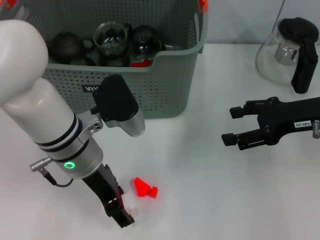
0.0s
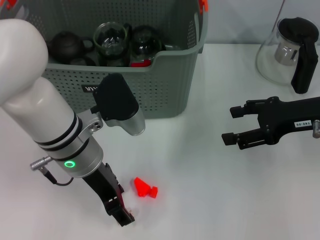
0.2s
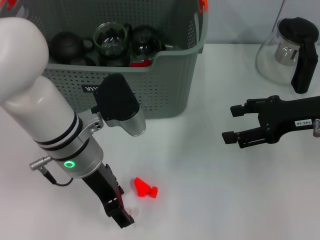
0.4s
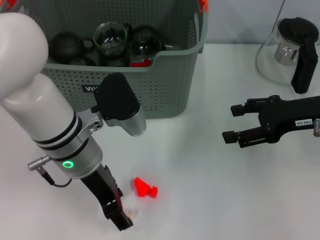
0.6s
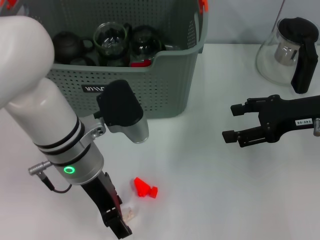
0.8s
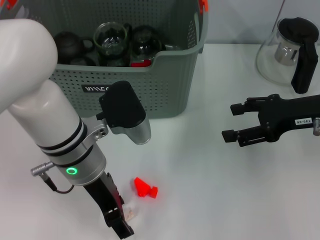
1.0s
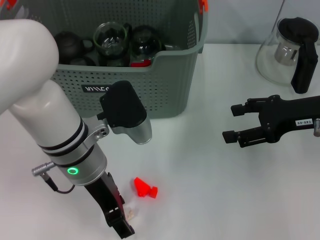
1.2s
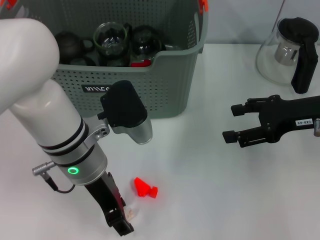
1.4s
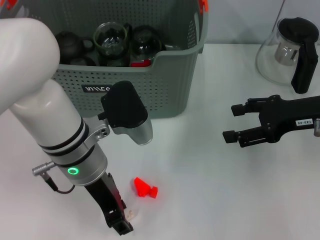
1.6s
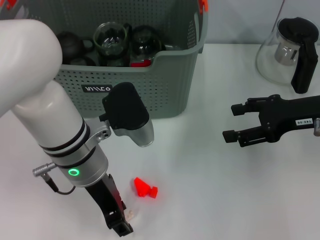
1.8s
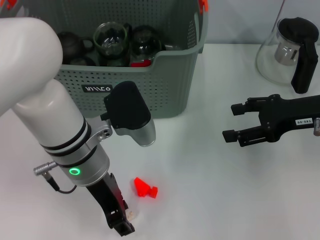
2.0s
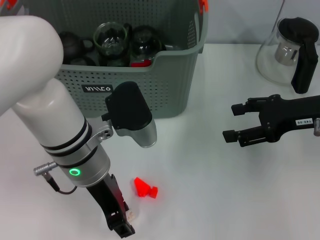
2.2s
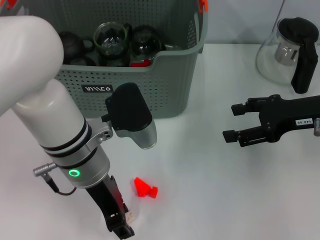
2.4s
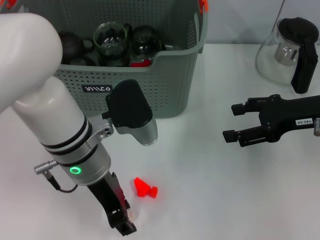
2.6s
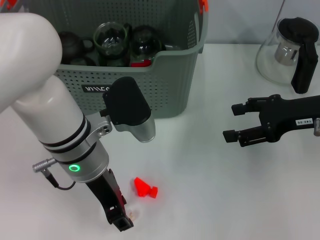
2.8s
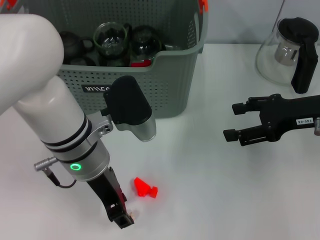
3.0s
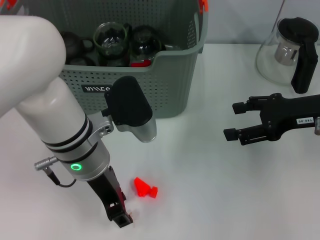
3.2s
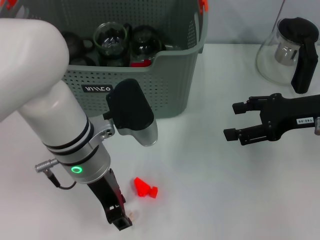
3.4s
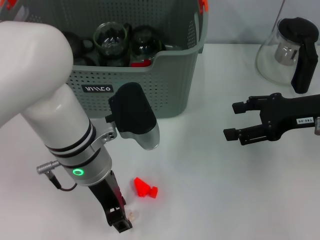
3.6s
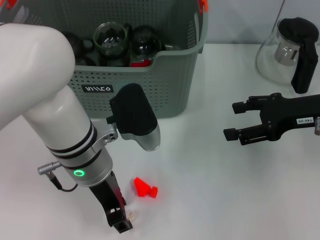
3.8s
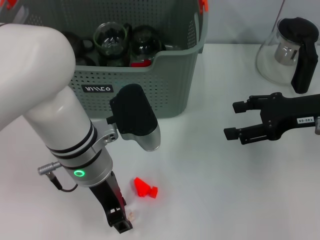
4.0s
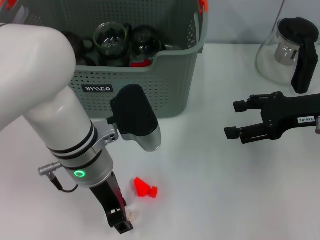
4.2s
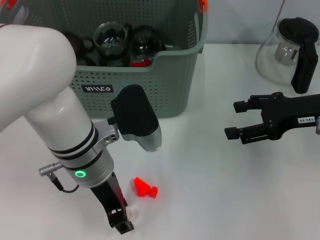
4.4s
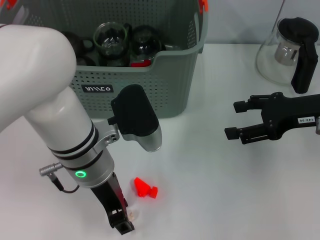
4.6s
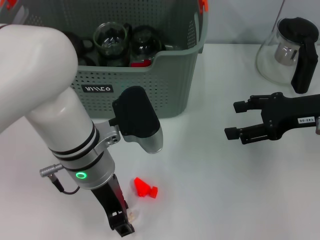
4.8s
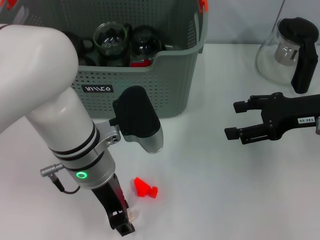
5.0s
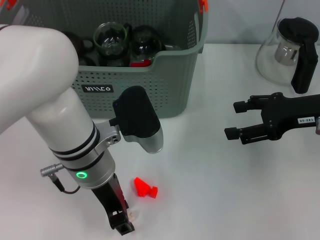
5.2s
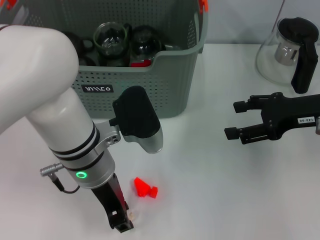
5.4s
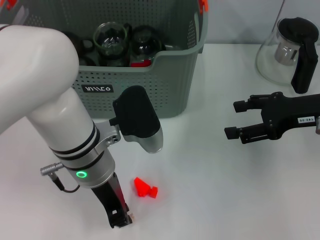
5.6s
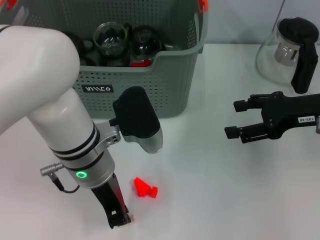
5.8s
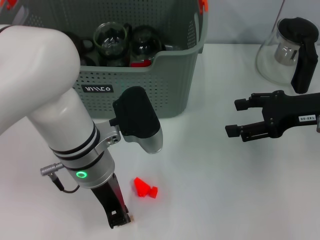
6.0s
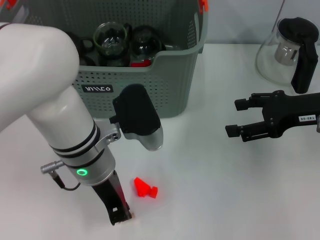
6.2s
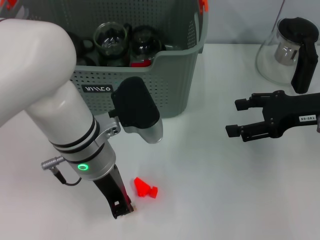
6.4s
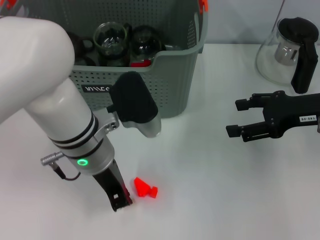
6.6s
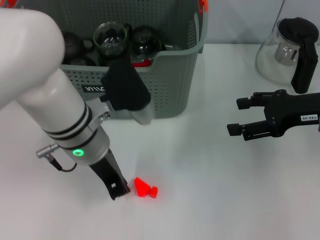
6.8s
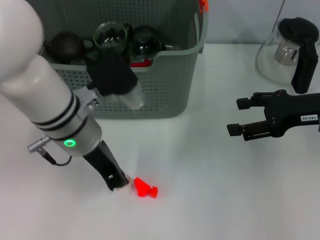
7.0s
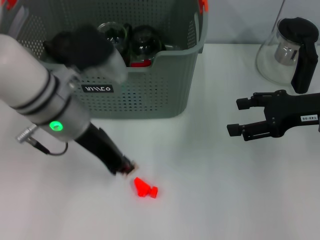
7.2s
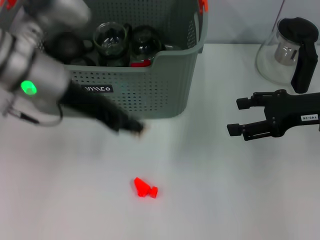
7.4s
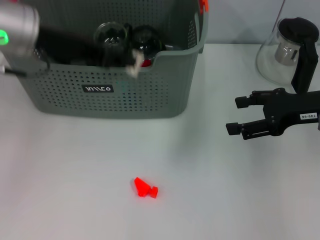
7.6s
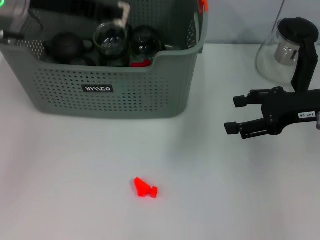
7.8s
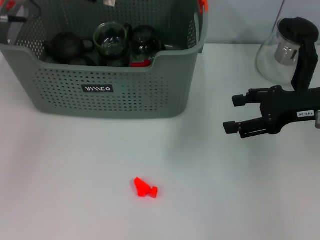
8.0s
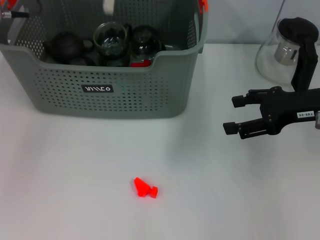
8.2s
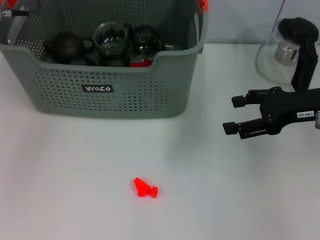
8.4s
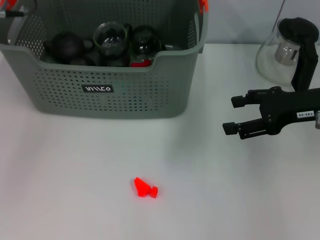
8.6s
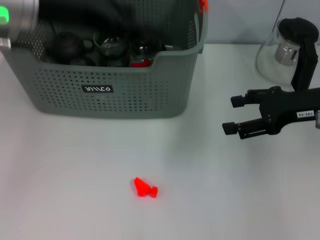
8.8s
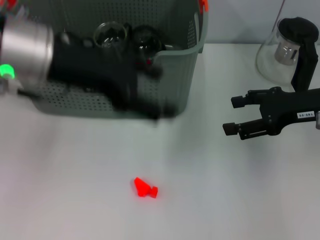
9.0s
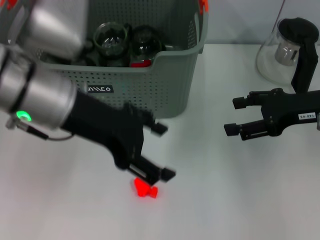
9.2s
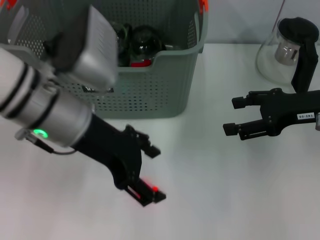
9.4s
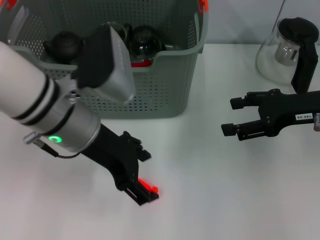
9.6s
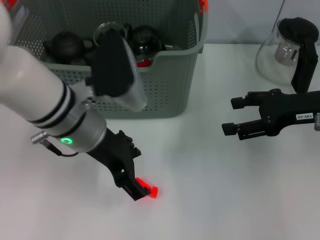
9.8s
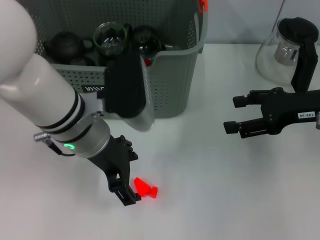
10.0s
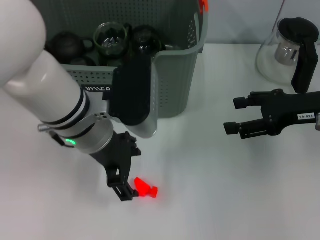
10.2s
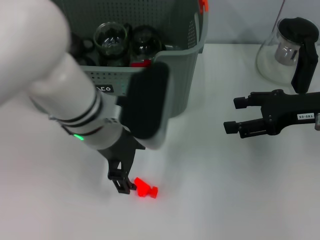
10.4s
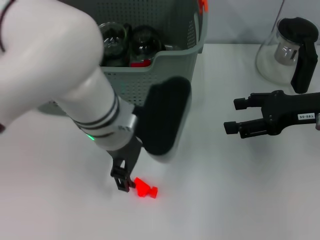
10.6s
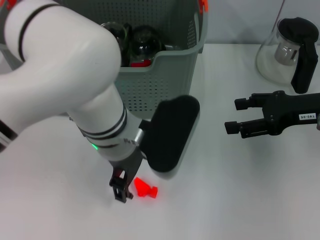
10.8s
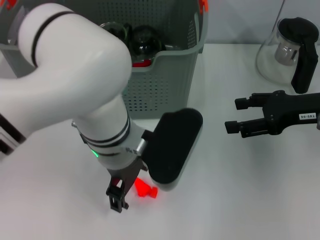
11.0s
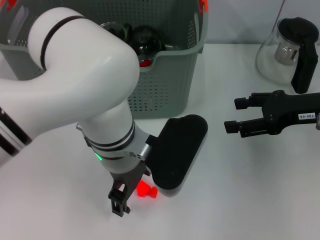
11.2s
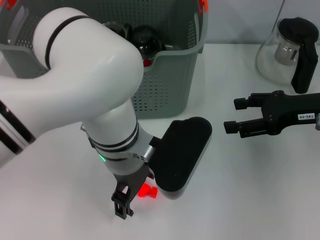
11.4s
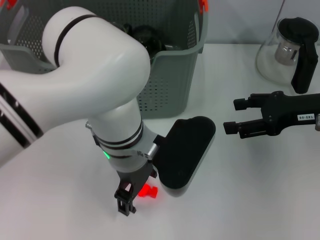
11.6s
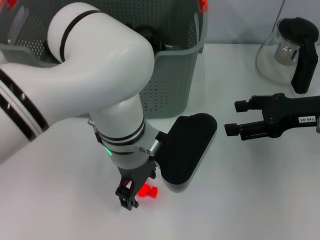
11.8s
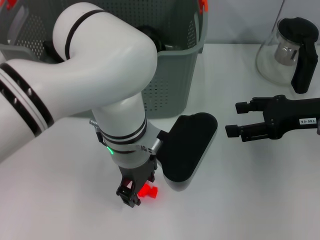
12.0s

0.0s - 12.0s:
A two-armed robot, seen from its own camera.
Task of the whole recording: pick up the teacup on the table and place it into the storage bin, pick up the block on the table and place it into the storage bin.
Step, 0.0s - 5.8s: Grasp the white block with left gripper.
Step, 6.2s - 8.2s: Place the white block in the storage box with left gripper.
0.0s - 1.6s: Neither gripper changes place.
1.6s - 4.4s: Both grippers stay about where they are.
4.4s - 6.0s: Both grippers stay put.
6.0s - 7.6s: The left gripper heads upward, to the left and forward, covering about 15 cm.
7.6s - 9.0s: The left gripper opens.
9.0s - 10.4s: The left gripper moves to the right and downward, some 10 cm.
10.4s - 12.0s: The left gripper goes about 5 cm to the right.

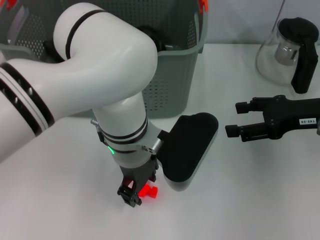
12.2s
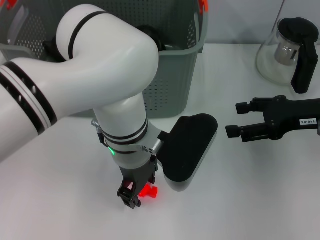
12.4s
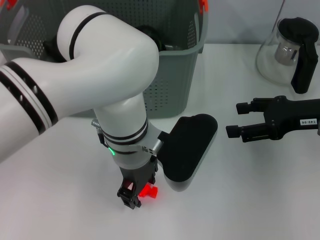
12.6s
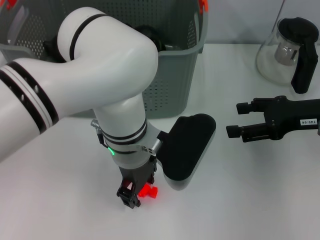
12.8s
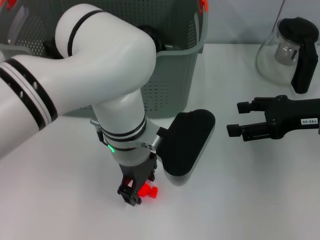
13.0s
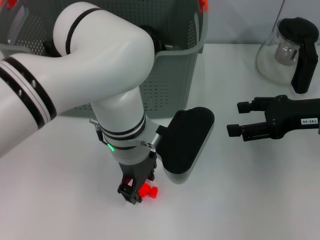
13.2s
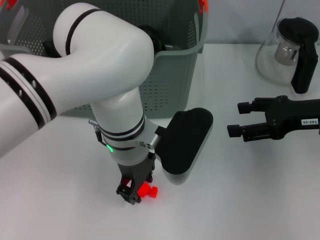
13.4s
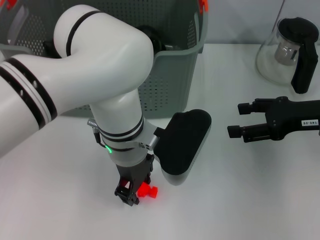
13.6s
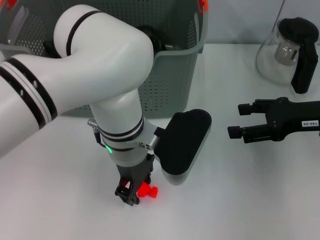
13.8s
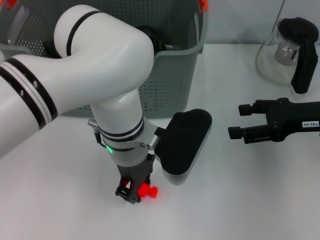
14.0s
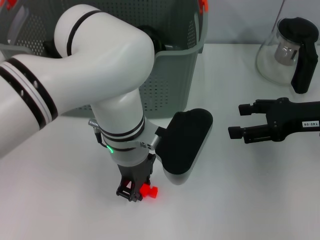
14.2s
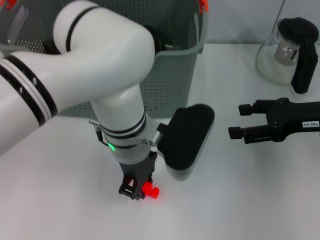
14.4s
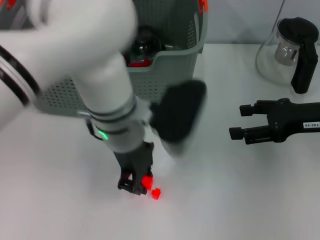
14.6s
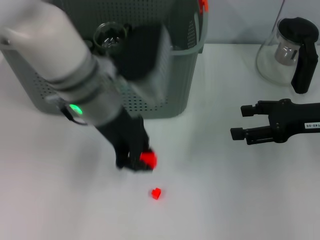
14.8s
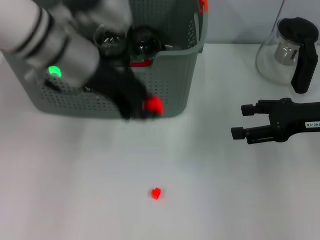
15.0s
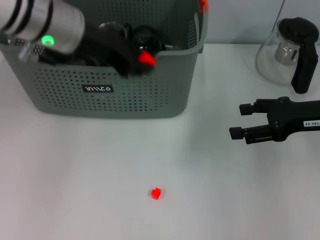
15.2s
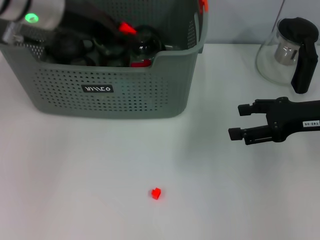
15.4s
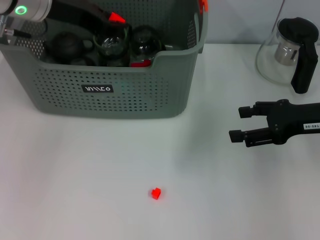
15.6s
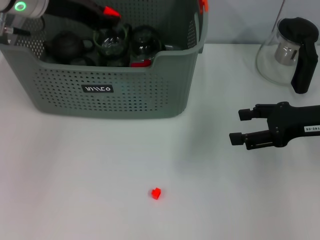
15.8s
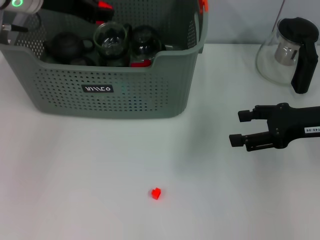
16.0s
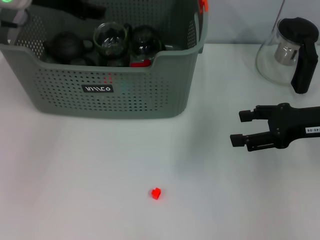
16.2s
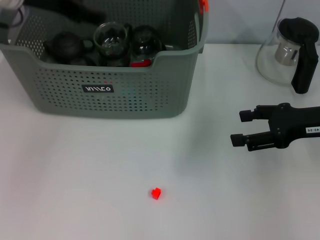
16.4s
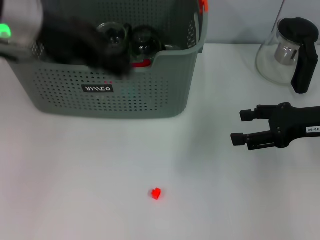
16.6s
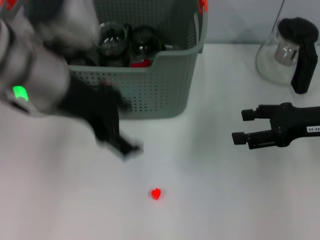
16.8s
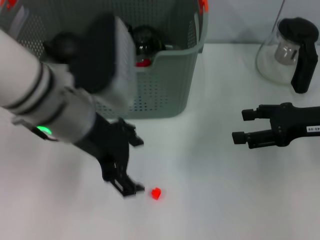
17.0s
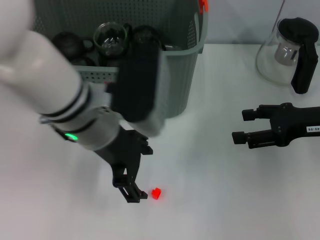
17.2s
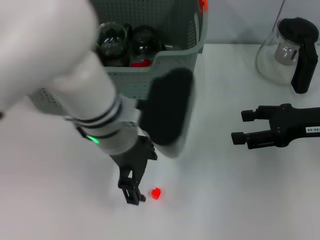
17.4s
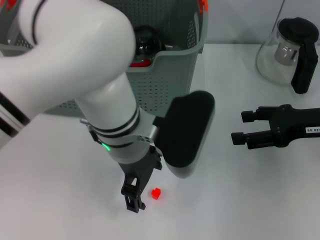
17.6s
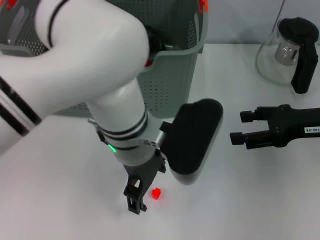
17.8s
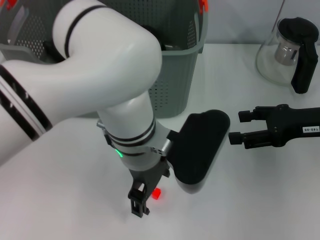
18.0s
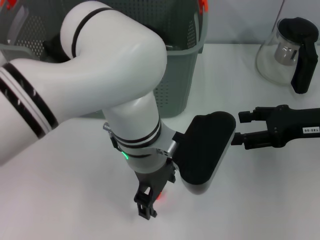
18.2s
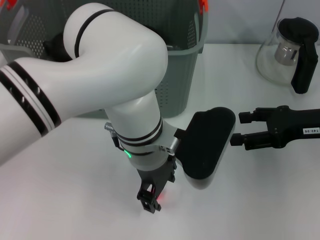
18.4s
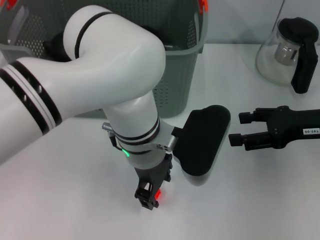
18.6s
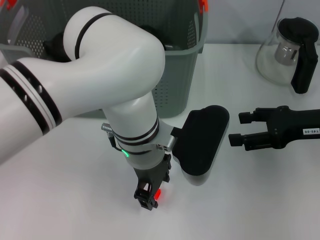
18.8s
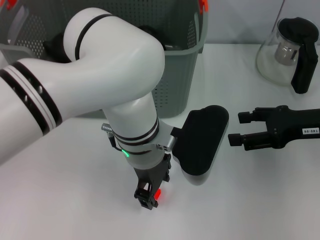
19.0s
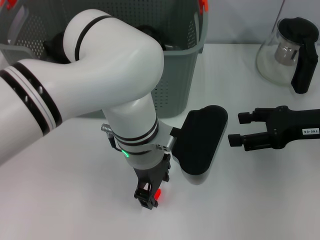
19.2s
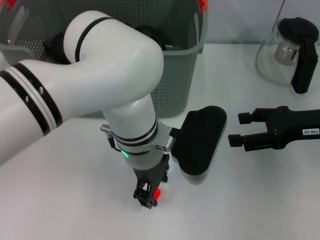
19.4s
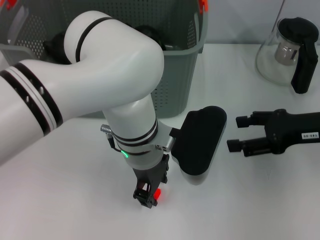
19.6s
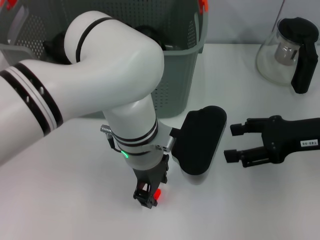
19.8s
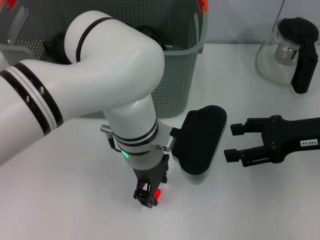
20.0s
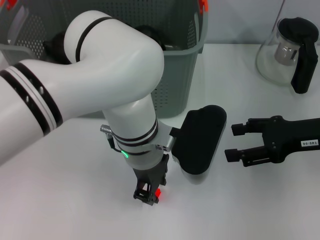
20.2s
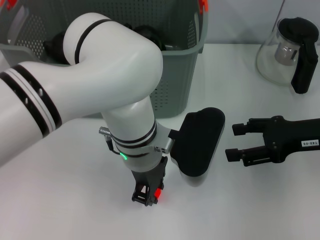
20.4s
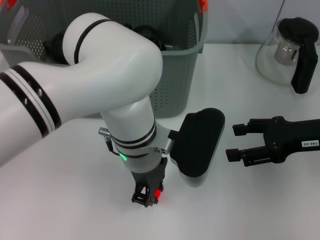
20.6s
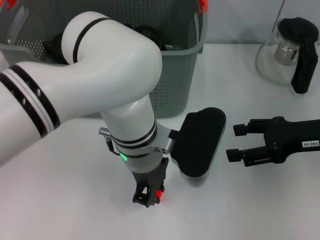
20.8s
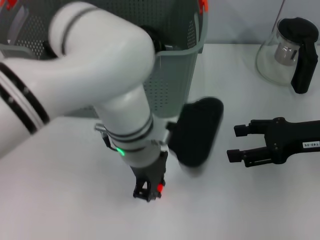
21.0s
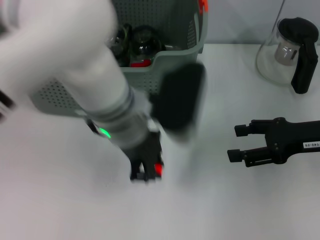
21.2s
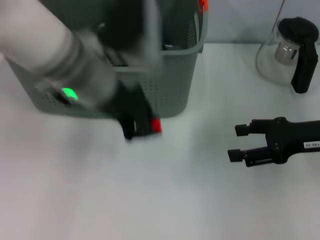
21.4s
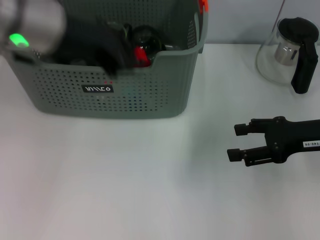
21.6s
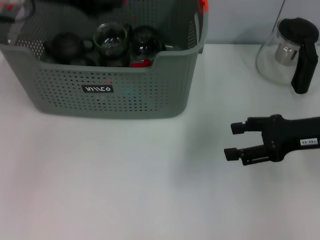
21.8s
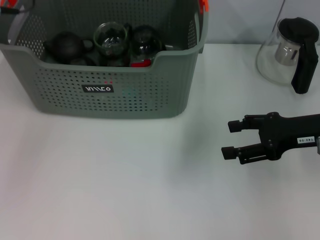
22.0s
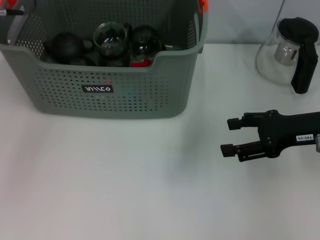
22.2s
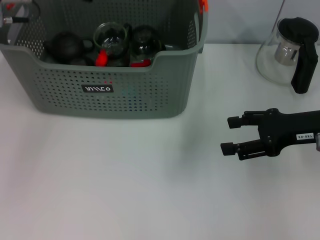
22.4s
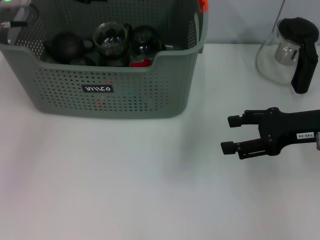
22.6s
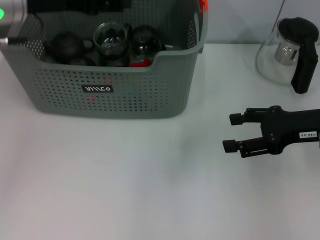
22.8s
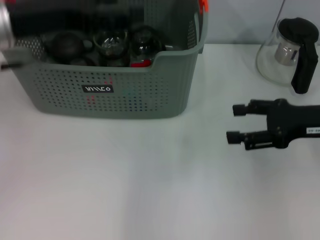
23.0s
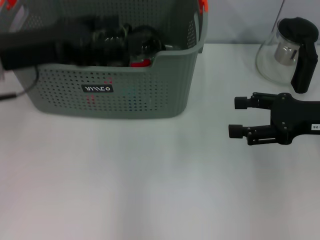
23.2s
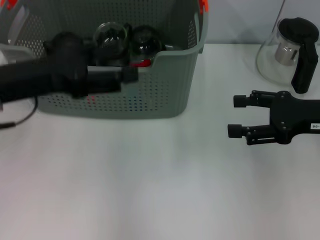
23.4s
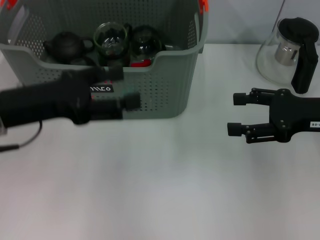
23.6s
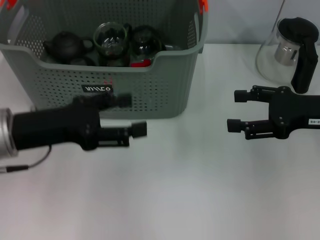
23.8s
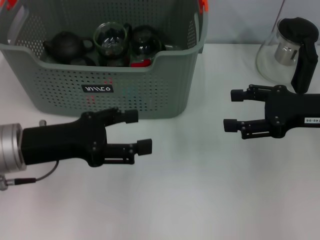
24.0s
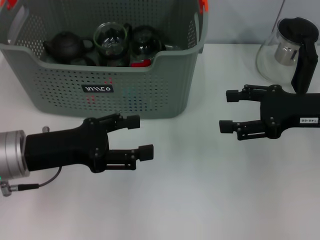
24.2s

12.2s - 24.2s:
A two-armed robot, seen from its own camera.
Task of the whole recording: pick up the teacup on the table and place it into the storage bin, pick up the block on the table and place it into the storage bin.
Step, 14.4s - 16.2s: Place the orange block in the storage box with left gripper.
Step, 16.4s - 20.8s: Grasp the orange block with left gripper.
Step, 21.0s - 22.4s: Place the orange block in the storage box with left gripper.
12.2s - 13.8s: The two grippers keep their place.
13.8s - 15.2s: The left gripper goes approximately 15 cm upward, to the left and forward.
15.2s - 16.6s: The left gripper opens up.
16.6s - 18.2s: The left gripper heads to the right and downward, covering some 20 cm.
18.2s - 19.8s: The left gripper closes its fingers.
19.8s - 21.2s: The left gripper changes place by approximately 5 cm, and closes its fingers.
21.2s - 22.6s: The left gripper is displaced to the left, forward and upward by some 20 cm.
22.6s - 24.2s: The left gripper travels backward and downward by about 20 cm, and opens its fingers.
